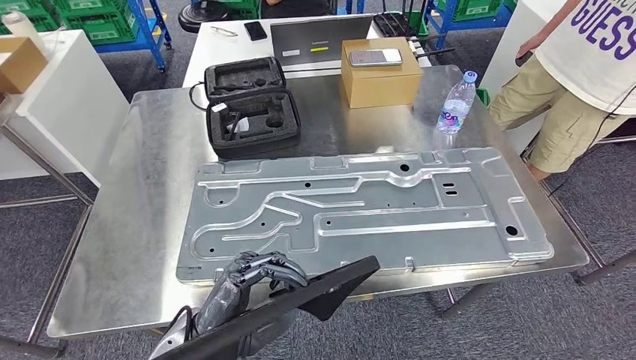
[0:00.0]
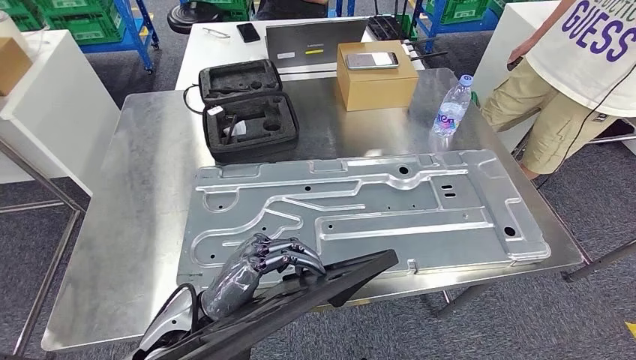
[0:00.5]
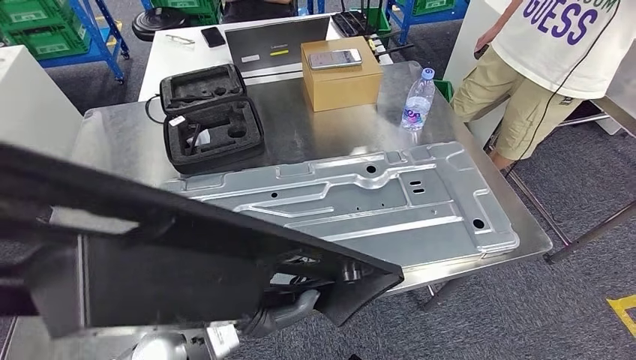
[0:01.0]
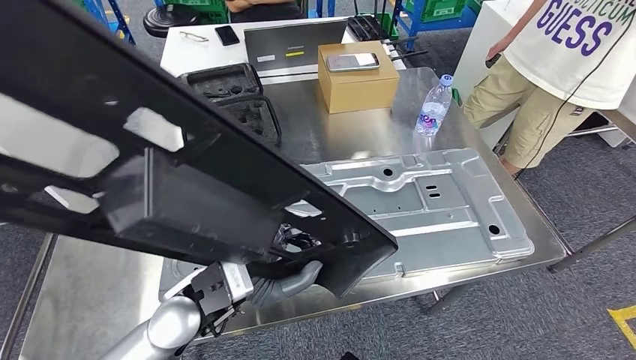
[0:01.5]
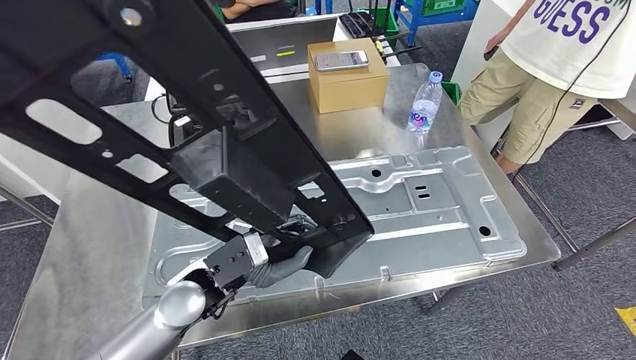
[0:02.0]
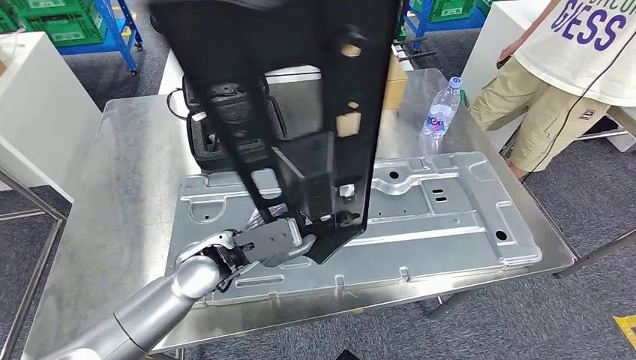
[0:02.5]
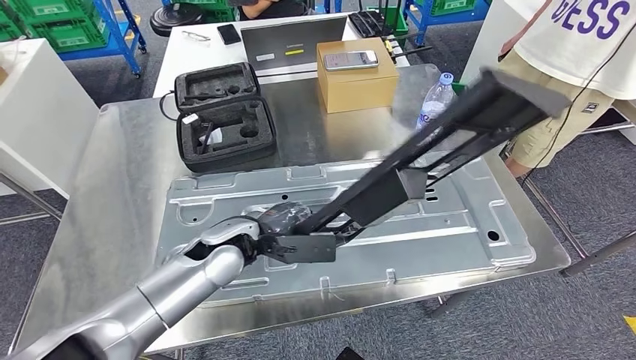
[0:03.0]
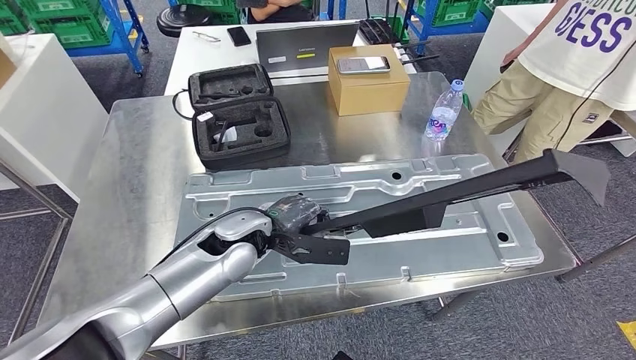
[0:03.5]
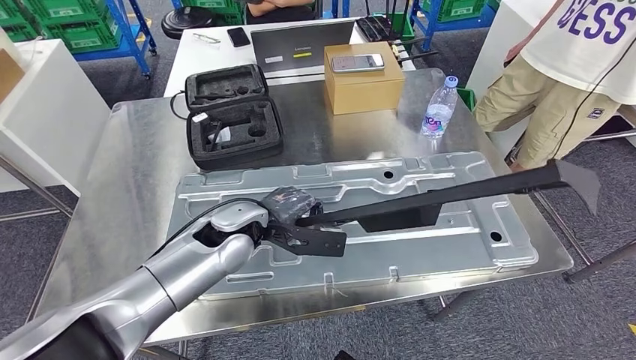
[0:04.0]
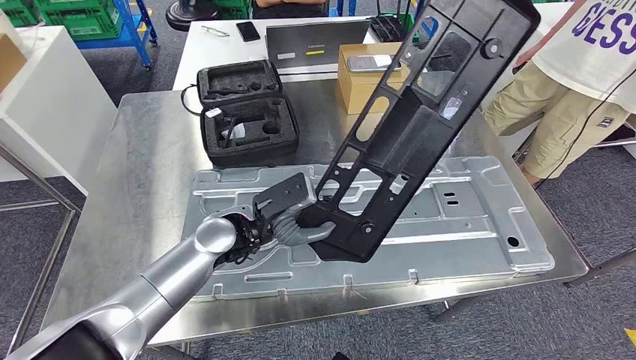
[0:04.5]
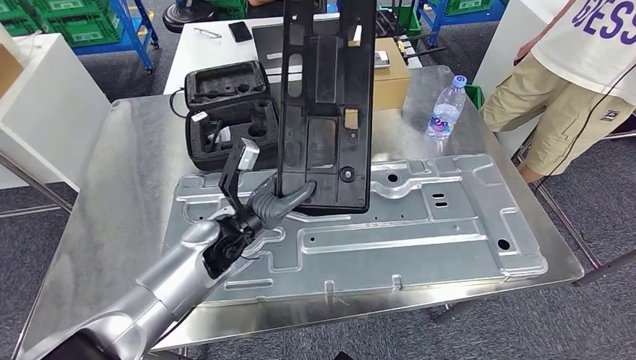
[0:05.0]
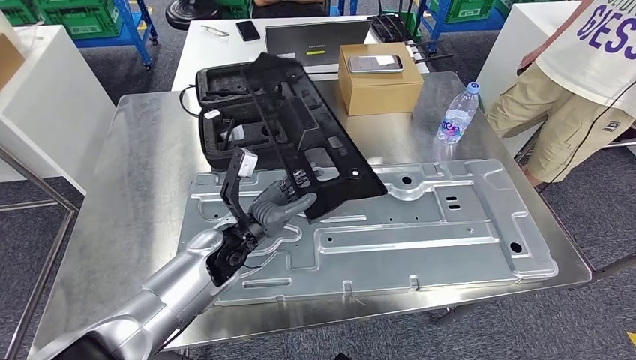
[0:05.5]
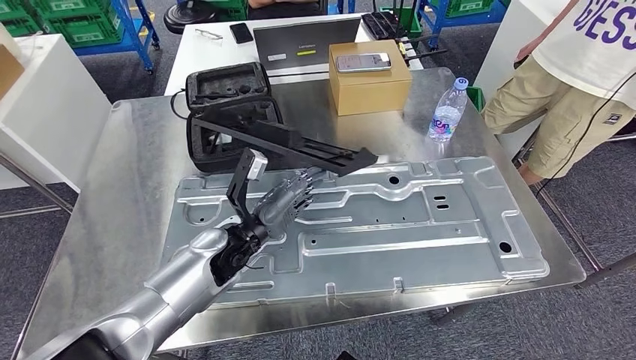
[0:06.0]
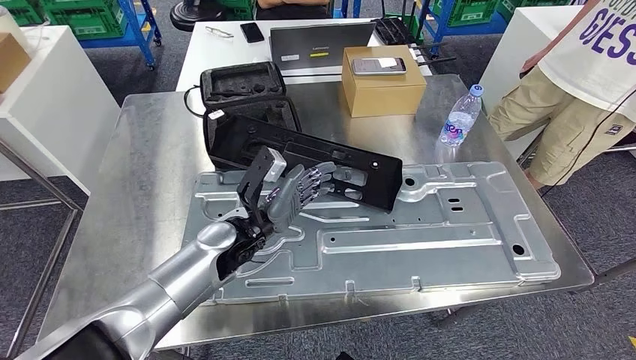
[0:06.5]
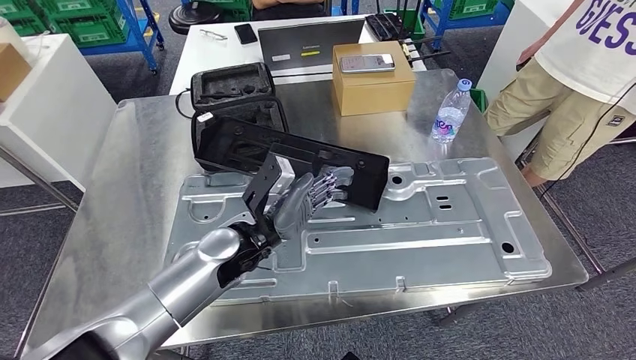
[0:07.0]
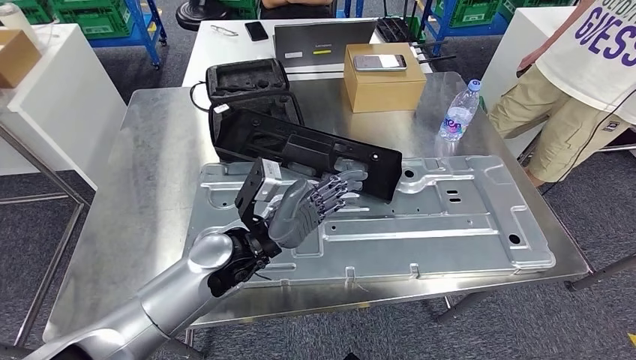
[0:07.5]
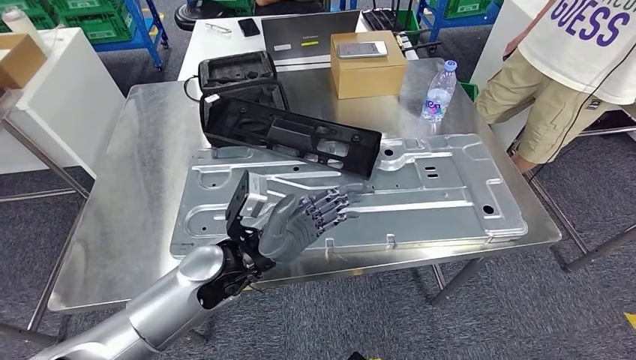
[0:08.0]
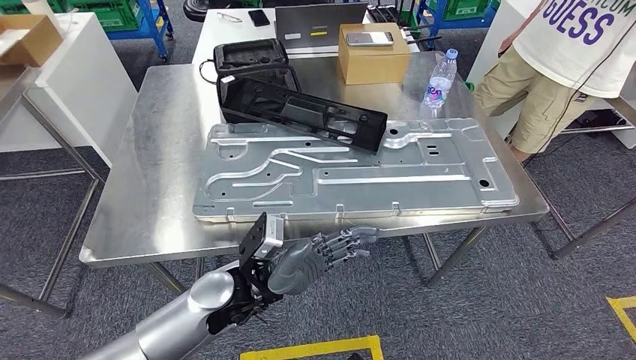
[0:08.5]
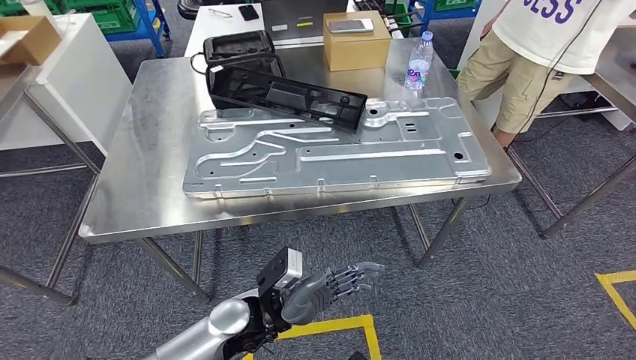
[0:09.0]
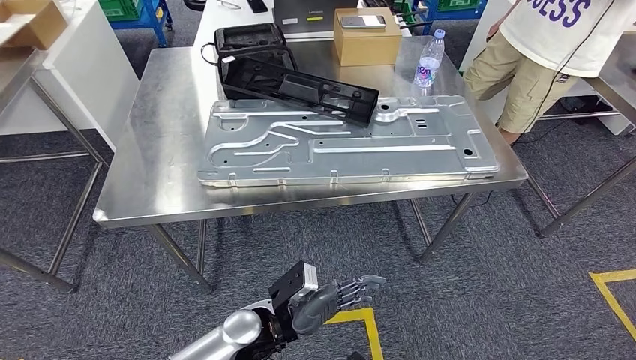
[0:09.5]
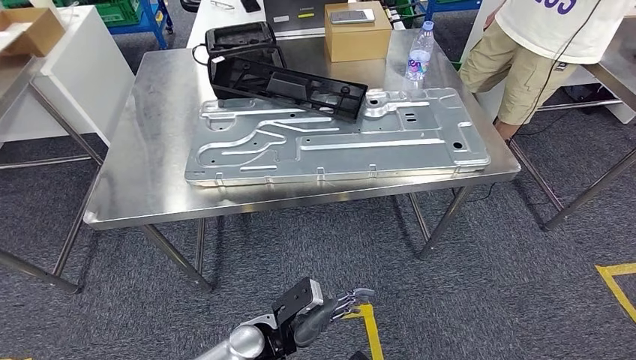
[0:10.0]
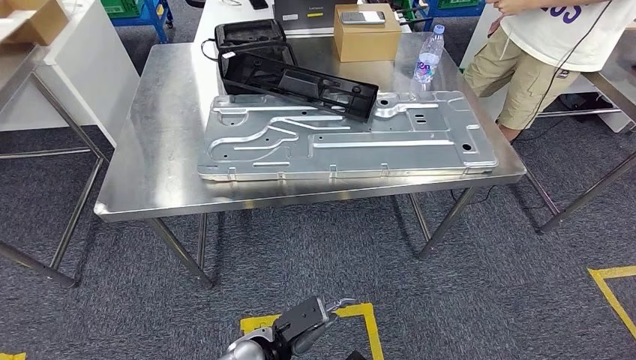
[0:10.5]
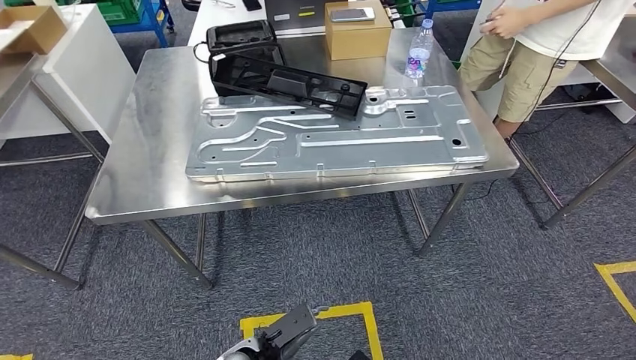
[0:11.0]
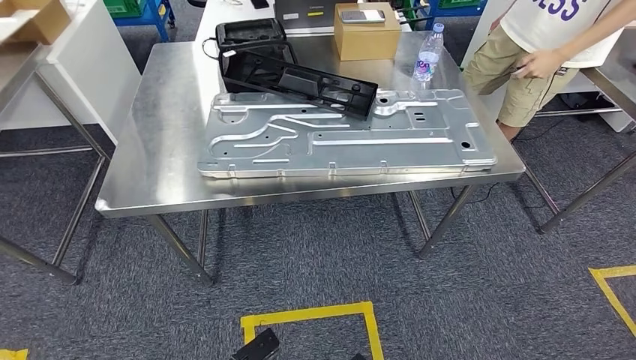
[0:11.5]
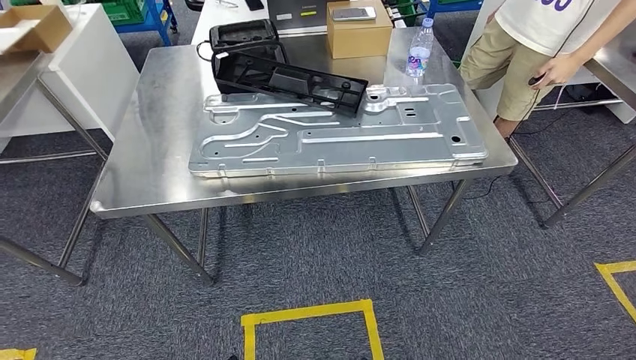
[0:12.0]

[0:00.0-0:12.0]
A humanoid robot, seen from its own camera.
Step, 0:00.0 to 0:10.0: Insert the large material into the corresponding slot on the workbench.

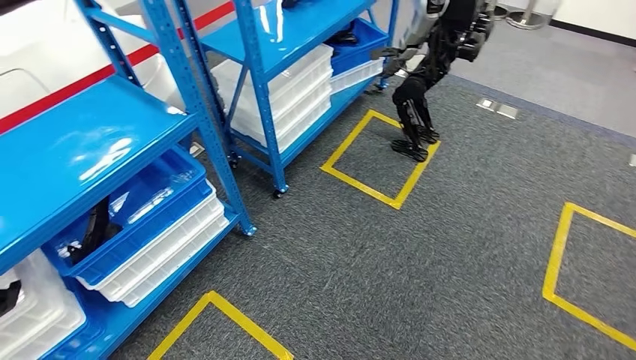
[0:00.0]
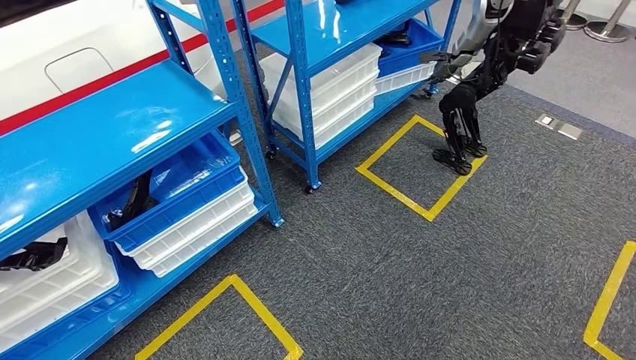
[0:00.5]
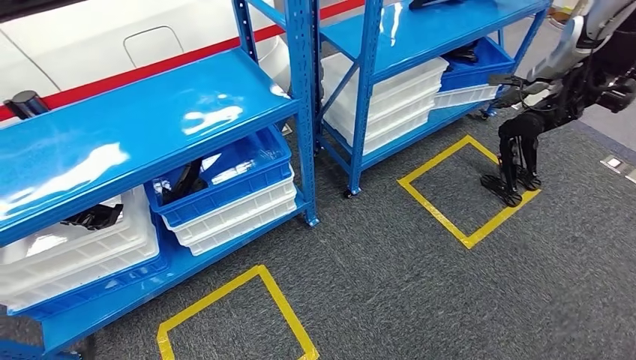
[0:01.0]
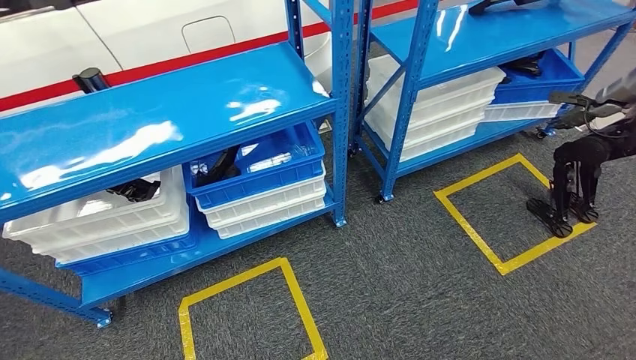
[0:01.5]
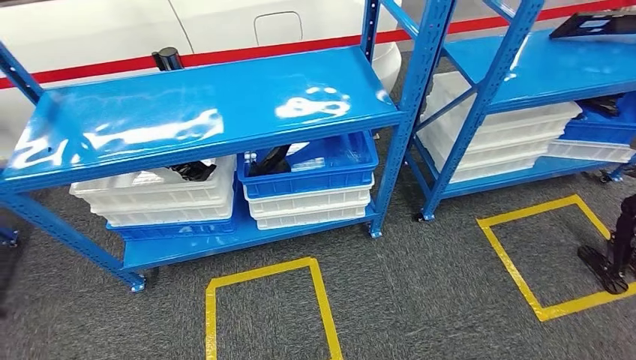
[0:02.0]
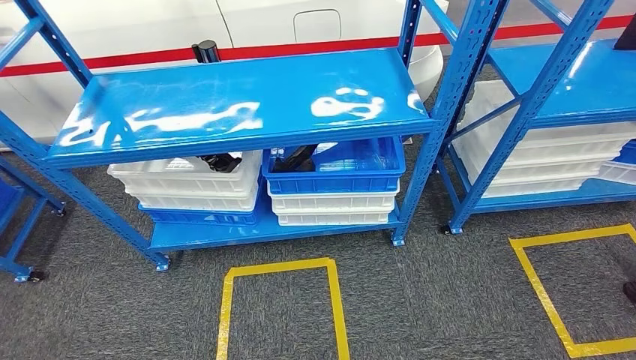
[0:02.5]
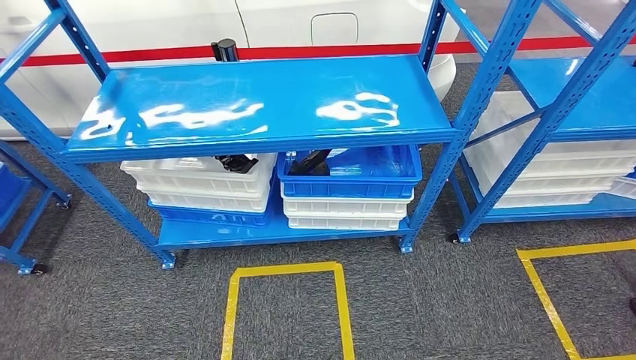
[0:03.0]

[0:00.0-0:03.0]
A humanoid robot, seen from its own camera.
Step, 0:00.0 to 0:03.0: Move to the initial position of the shelf.
